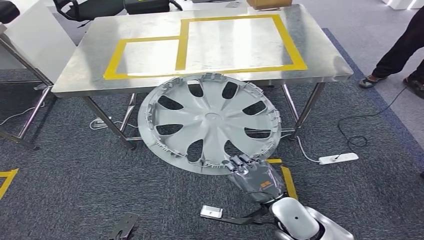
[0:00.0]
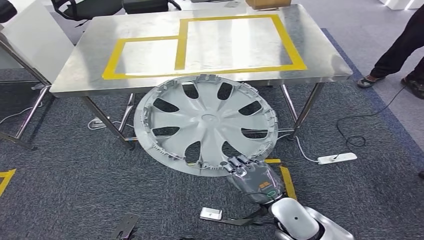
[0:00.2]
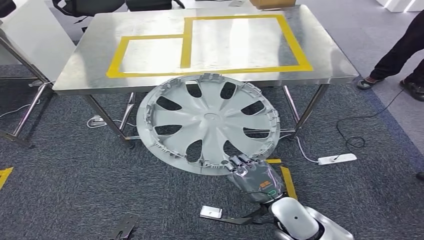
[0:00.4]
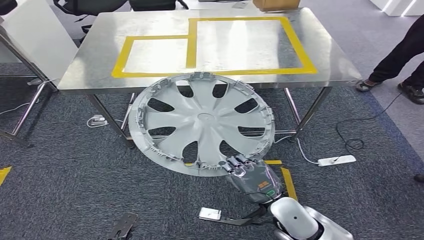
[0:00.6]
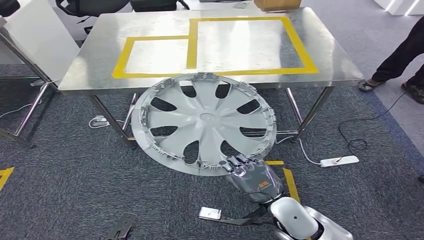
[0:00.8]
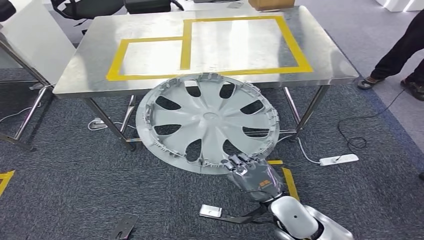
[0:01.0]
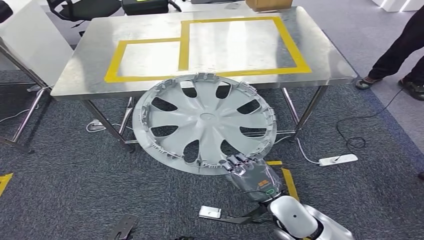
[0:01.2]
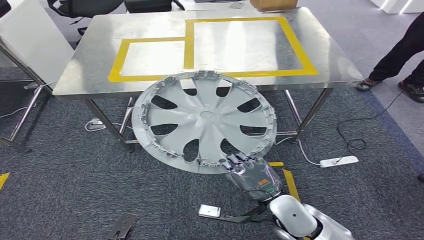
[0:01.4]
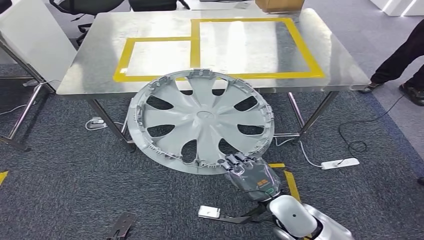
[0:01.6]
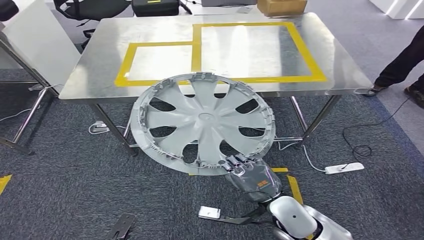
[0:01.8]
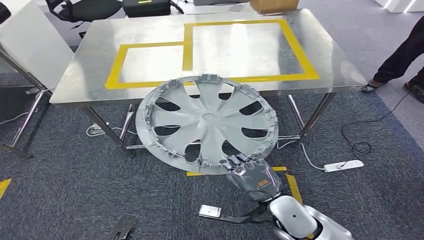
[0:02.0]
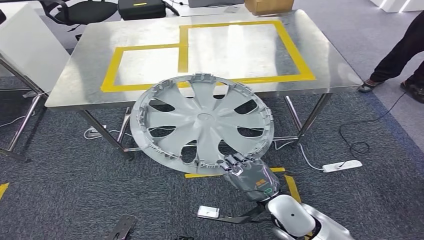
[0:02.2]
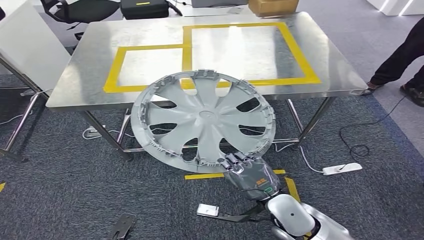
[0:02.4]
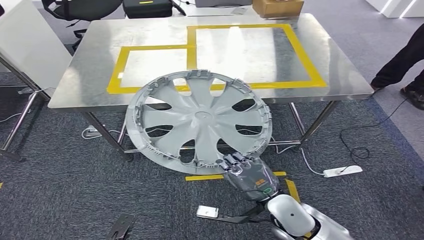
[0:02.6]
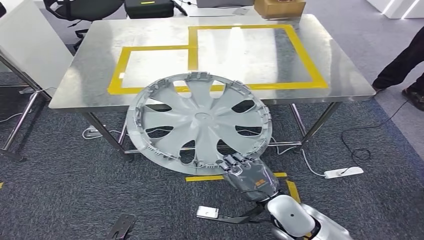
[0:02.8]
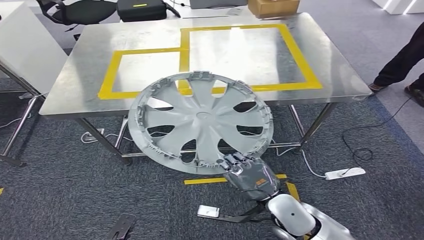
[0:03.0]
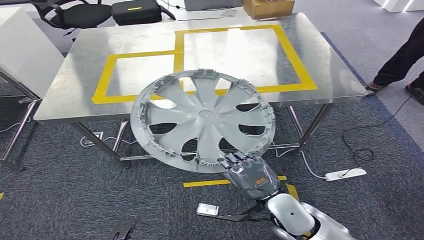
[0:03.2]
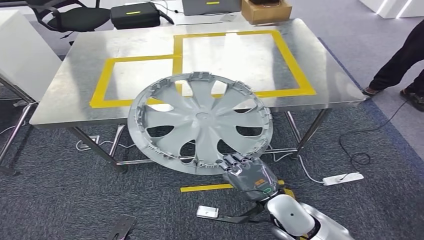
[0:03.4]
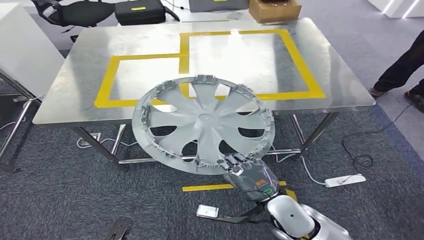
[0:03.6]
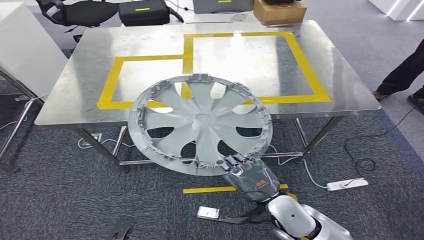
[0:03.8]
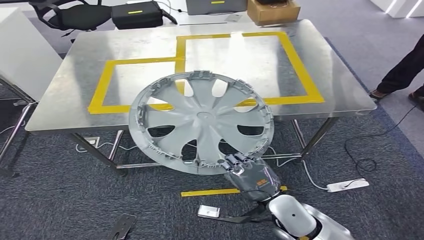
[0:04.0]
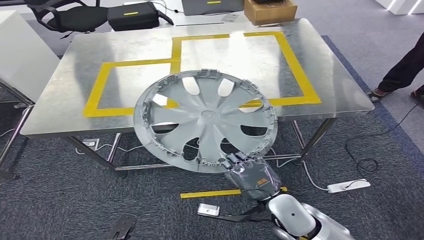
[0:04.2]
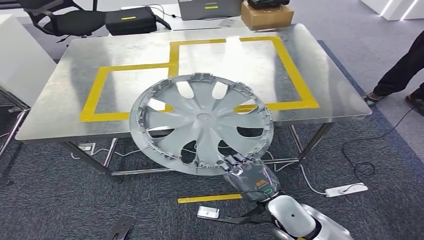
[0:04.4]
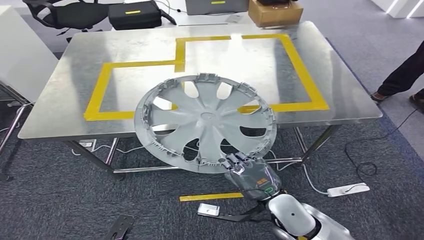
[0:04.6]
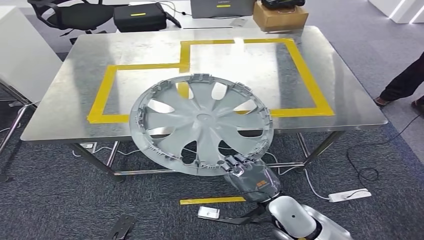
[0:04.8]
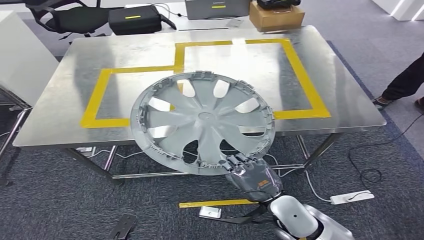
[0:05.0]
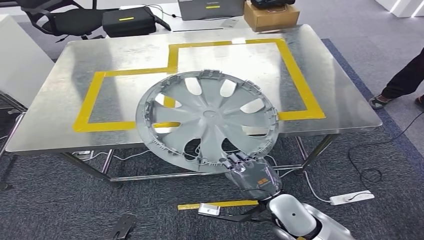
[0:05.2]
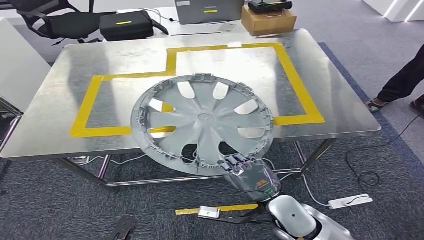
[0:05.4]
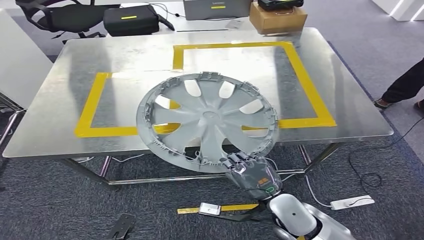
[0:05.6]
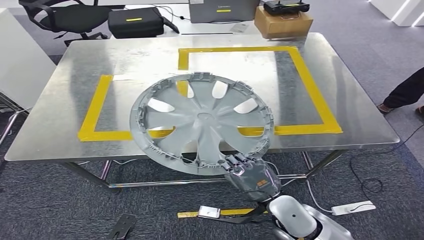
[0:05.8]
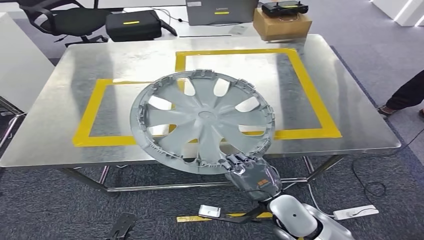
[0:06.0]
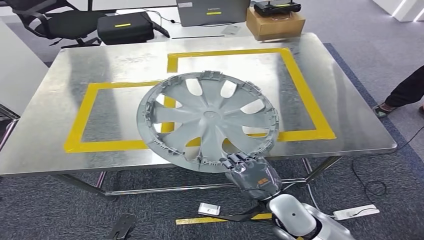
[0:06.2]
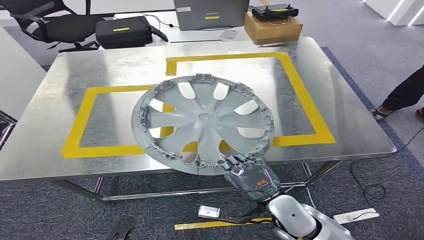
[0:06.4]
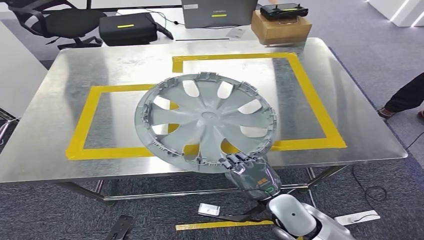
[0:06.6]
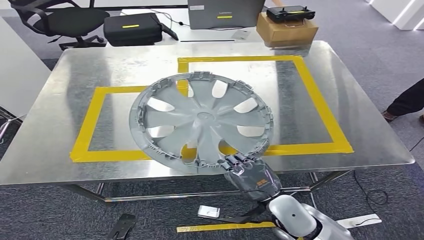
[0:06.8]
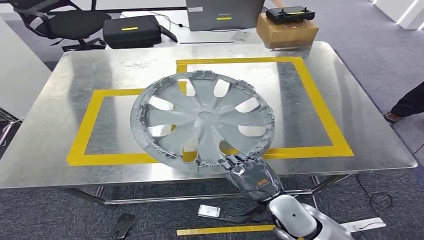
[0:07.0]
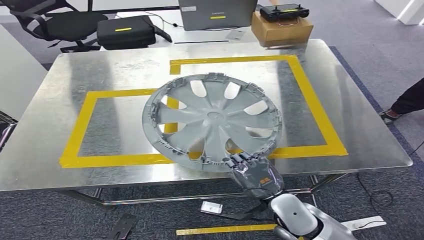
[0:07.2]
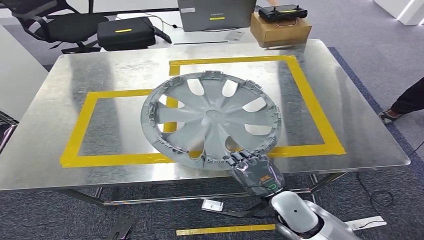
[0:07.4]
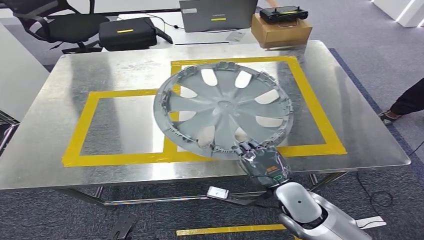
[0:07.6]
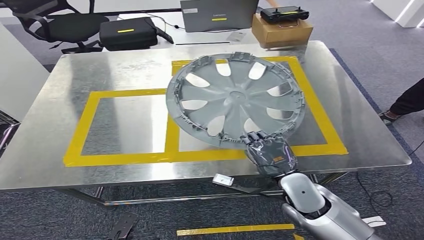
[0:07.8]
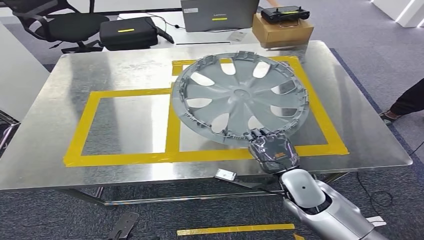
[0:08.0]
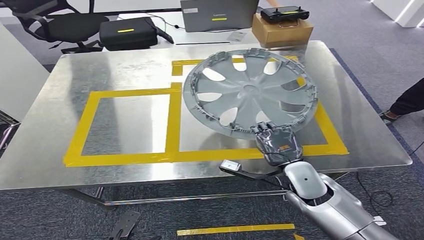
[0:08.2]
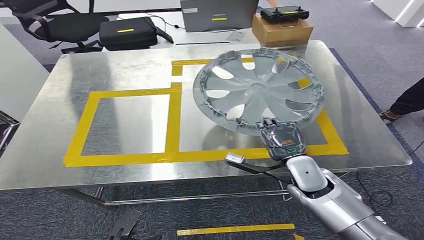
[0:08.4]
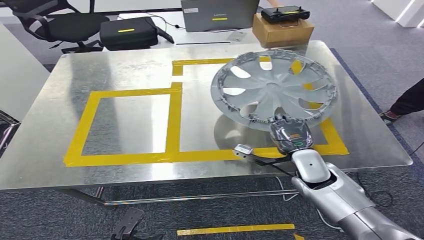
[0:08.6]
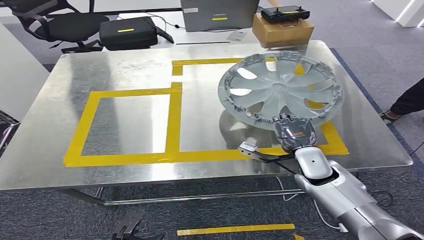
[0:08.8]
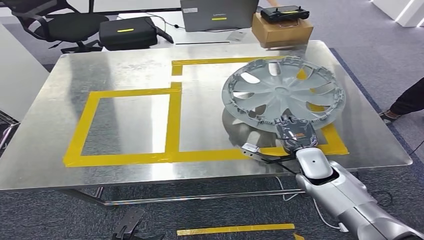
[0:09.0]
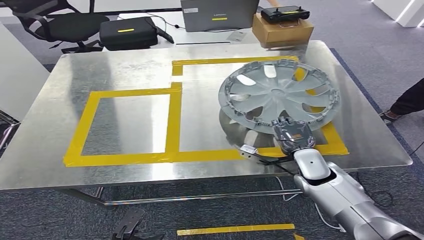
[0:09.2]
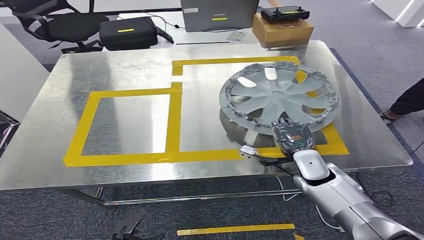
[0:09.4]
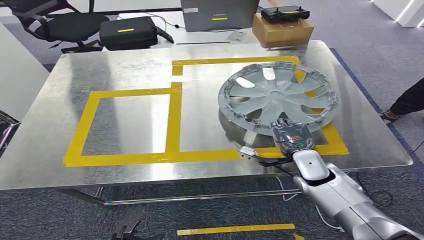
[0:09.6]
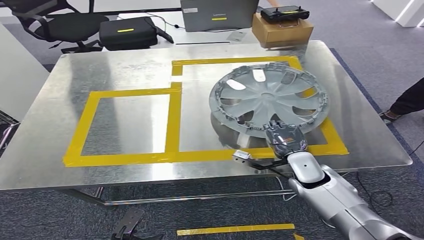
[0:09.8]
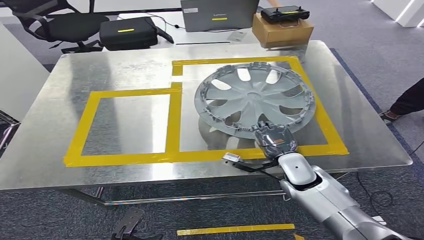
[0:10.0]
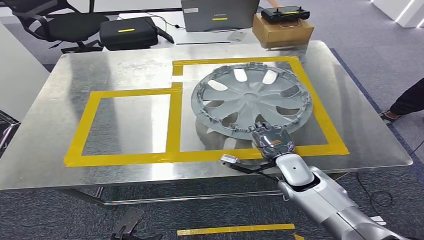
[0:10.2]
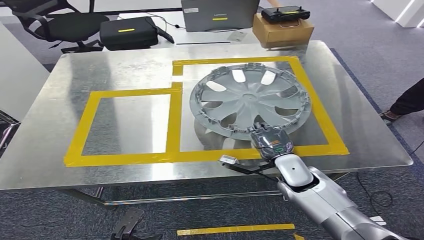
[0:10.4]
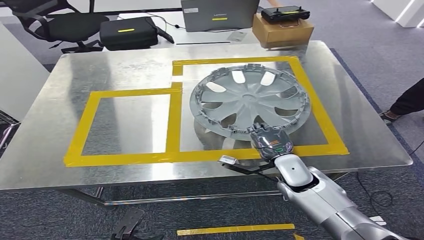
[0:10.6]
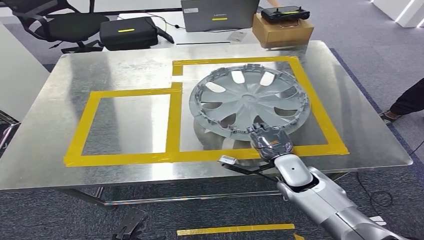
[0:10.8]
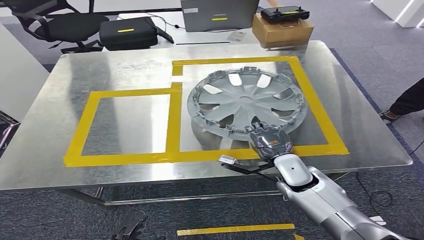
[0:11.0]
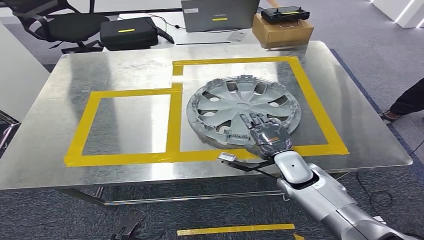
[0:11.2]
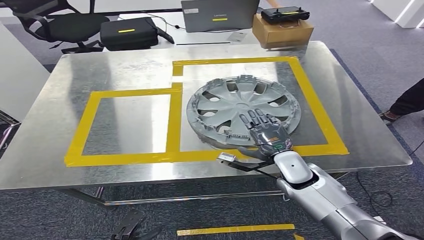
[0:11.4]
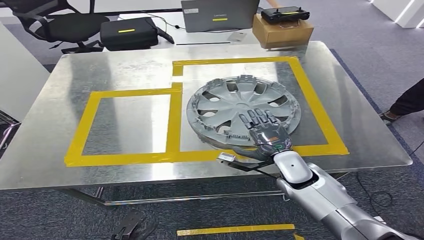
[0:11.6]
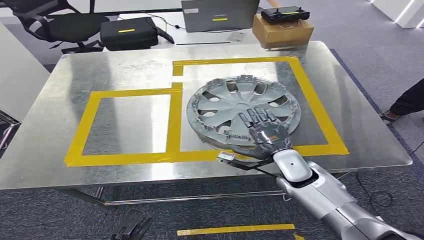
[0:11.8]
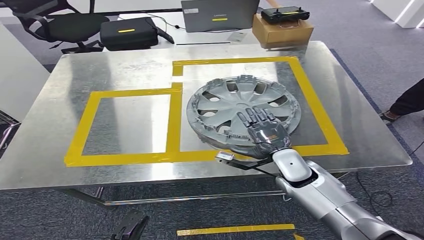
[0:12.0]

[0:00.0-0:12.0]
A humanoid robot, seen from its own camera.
0:09.0 to 0:12.0: There are only small adjustments of the hands.

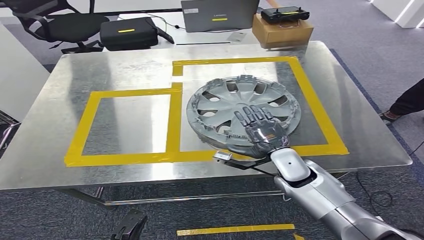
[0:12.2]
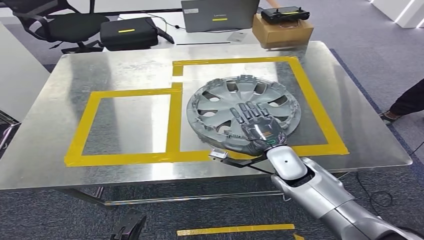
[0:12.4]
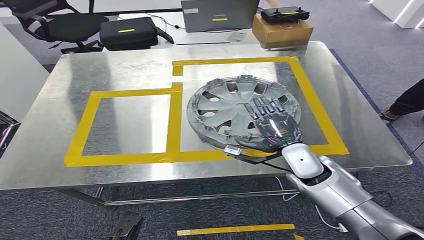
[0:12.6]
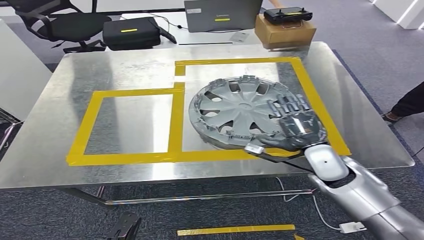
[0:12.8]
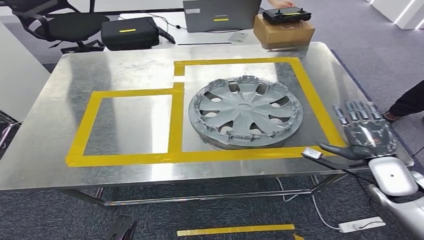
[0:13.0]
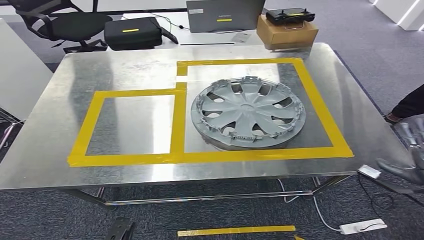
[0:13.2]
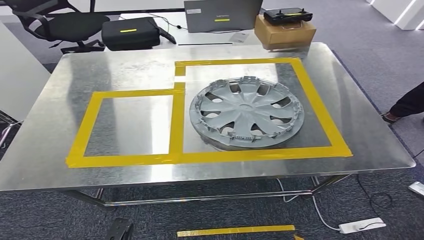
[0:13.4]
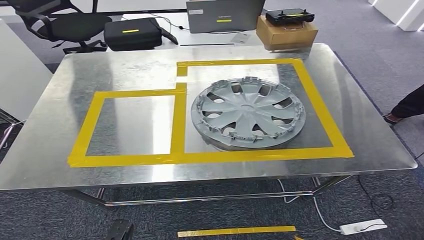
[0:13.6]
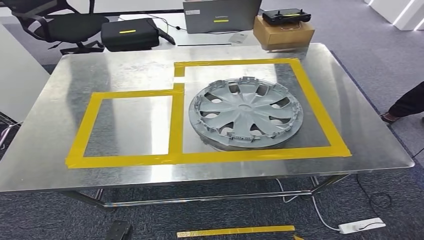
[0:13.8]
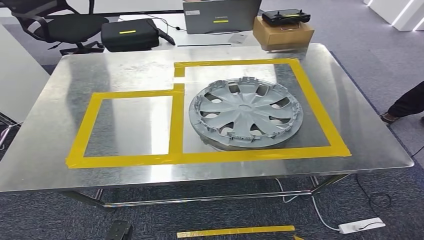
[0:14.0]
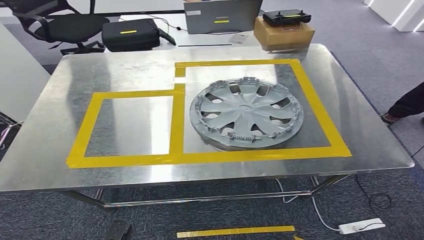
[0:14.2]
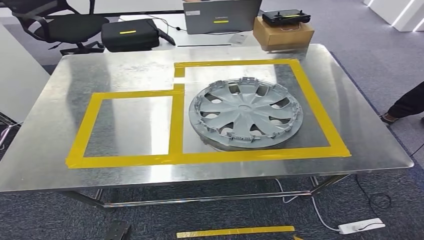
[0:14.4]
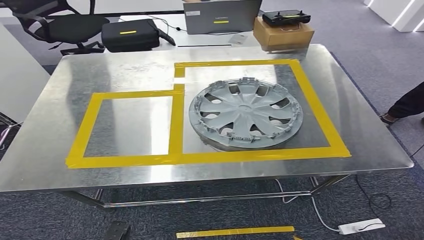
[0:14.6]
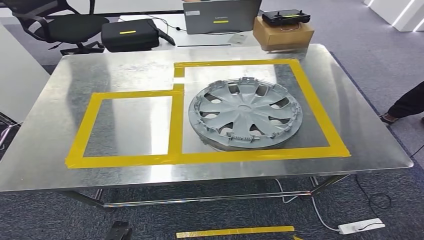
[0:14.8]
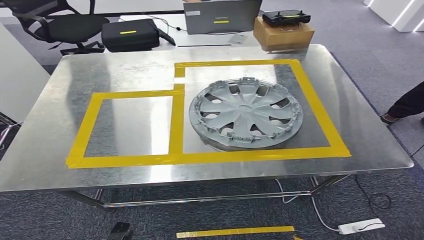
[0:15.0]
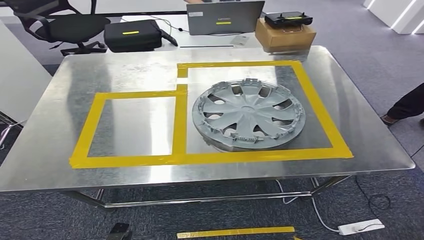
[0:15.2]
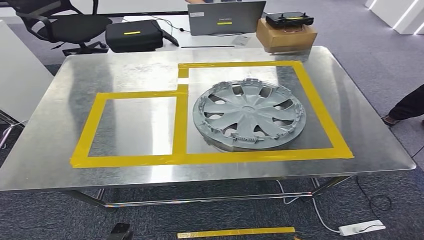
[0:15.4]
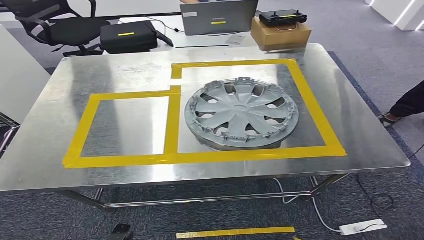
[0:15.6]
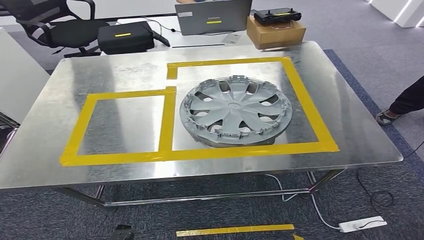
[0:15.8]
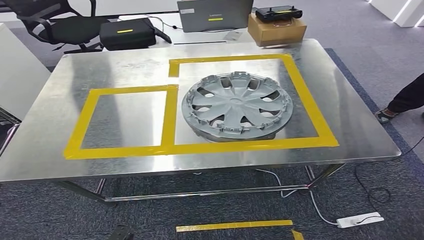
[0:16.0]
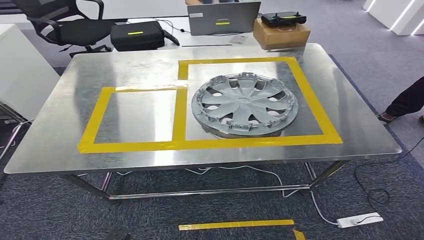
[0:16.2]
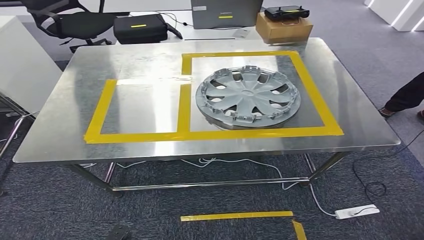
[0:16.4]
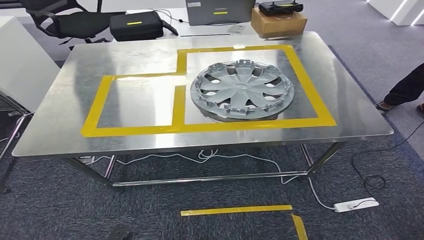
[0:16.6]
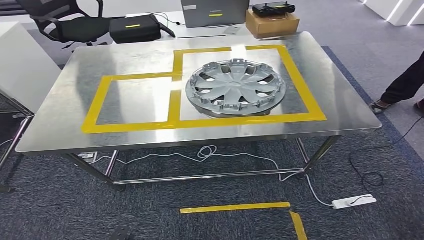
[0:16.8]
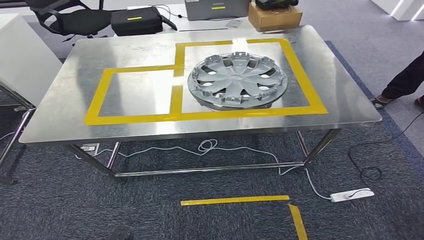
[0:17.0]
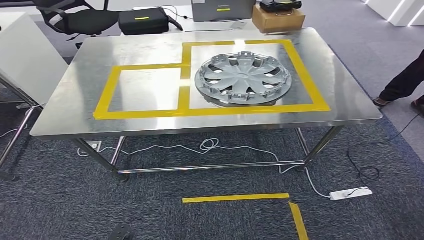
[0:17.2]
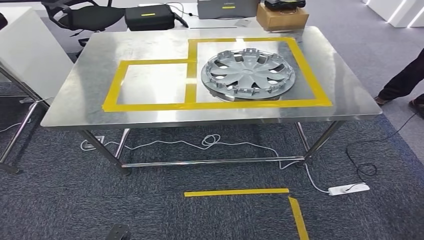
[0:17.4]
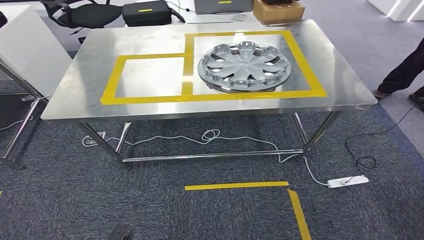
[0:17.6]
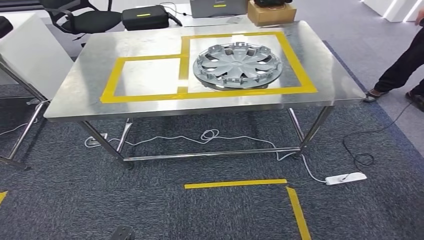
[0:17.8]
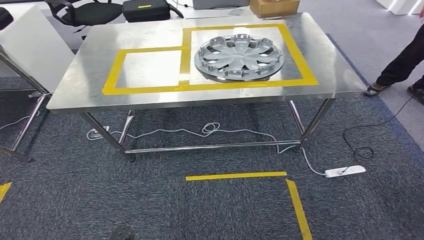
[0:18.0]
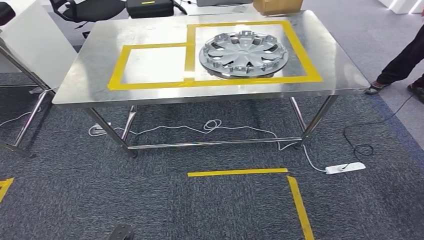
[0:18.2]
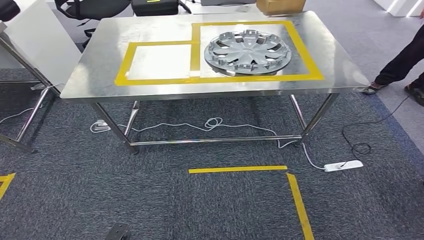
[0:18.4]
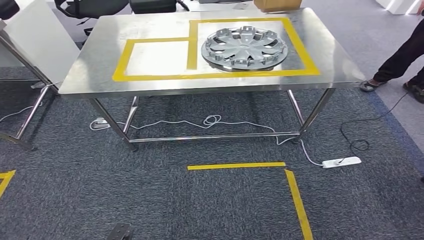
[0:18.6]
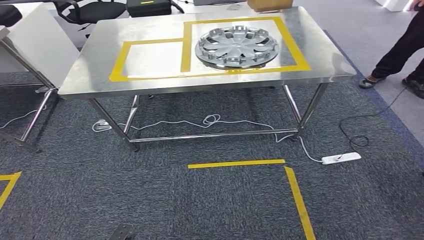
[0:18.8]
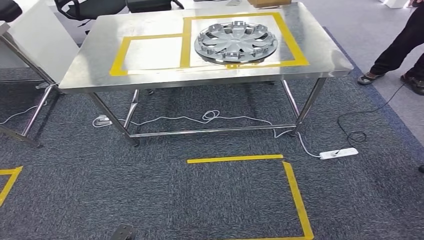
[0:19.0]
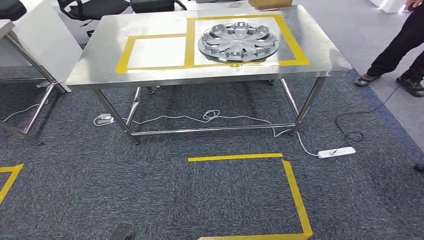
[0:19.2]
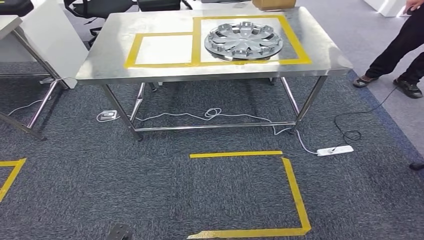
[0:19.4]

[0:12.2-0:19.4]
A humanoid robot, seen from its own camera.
0:13.6 to 0:15.0: The right hand travels downward, to the left and backward by approximately 40 cm.
